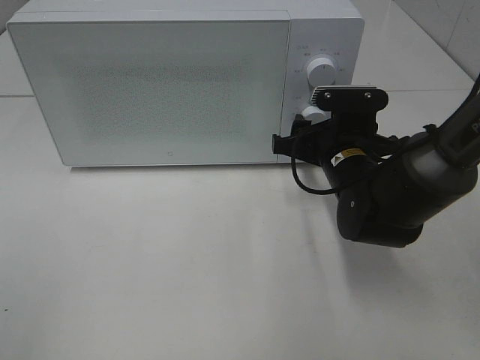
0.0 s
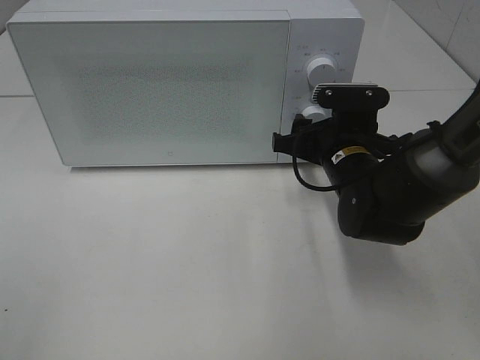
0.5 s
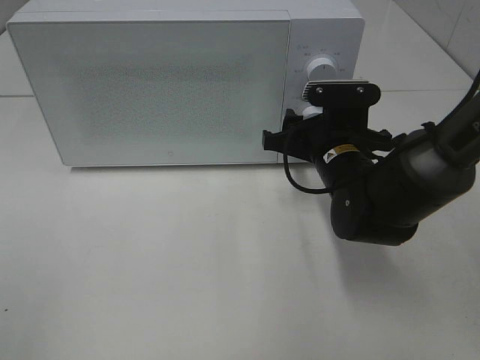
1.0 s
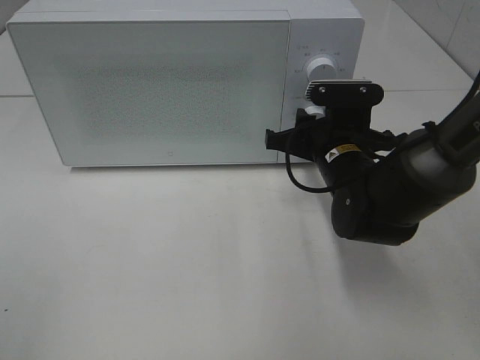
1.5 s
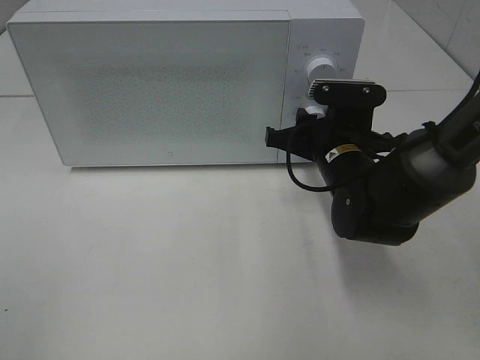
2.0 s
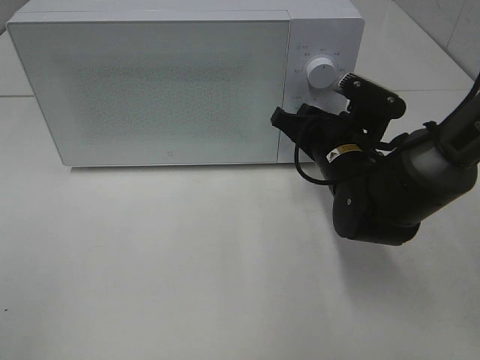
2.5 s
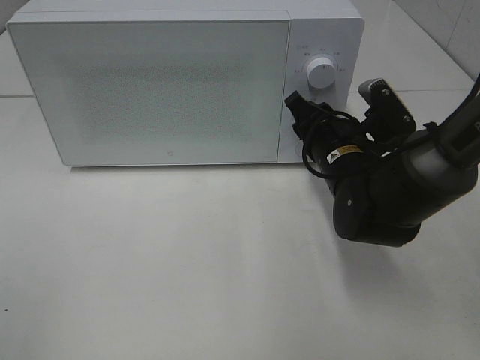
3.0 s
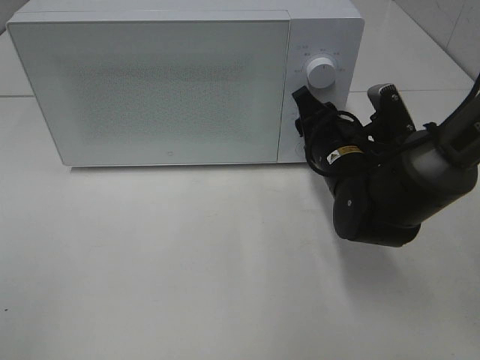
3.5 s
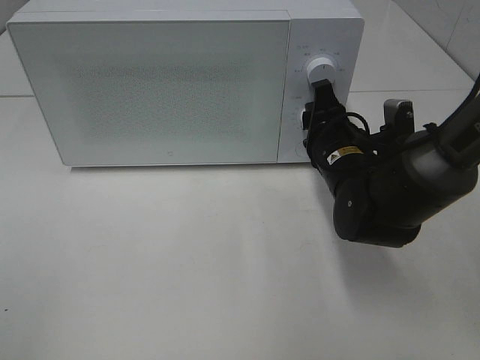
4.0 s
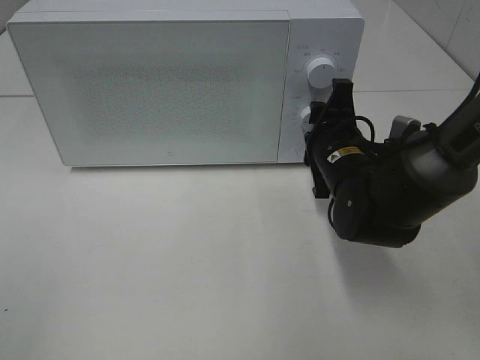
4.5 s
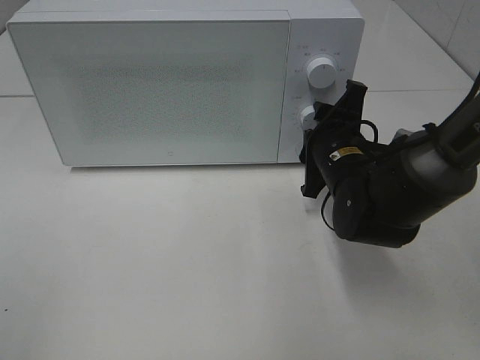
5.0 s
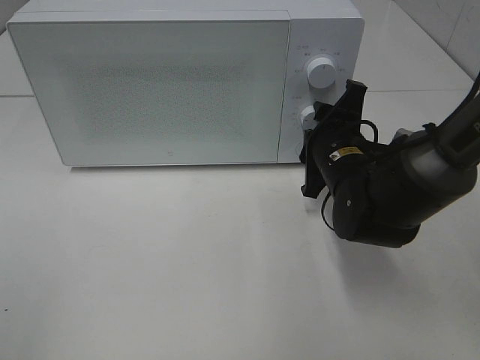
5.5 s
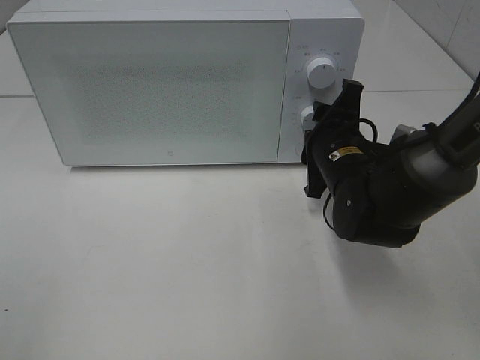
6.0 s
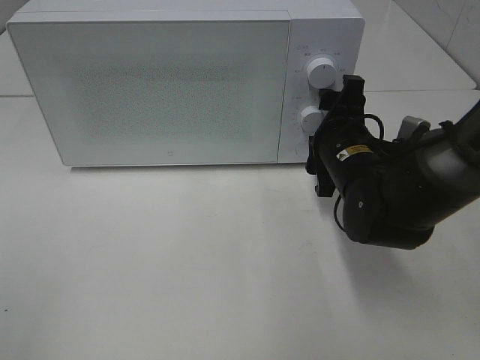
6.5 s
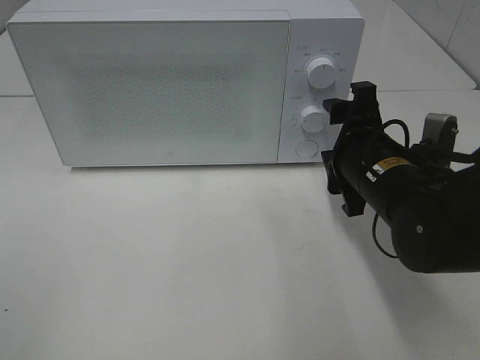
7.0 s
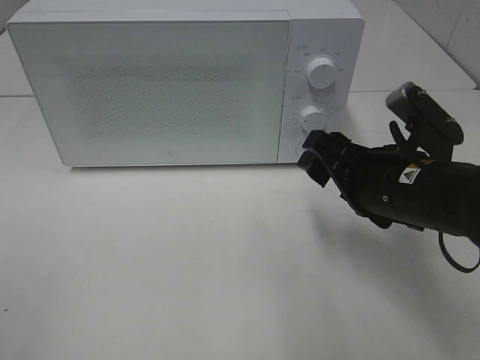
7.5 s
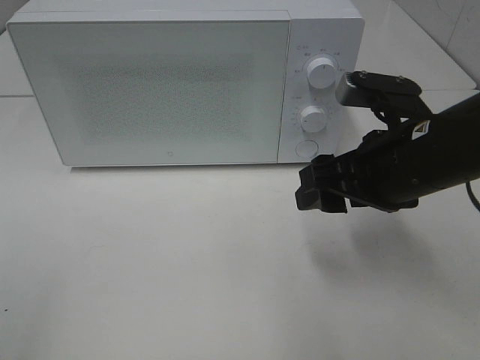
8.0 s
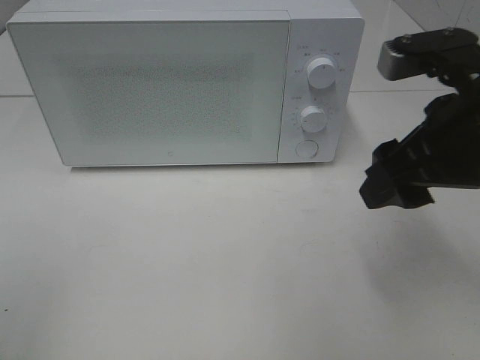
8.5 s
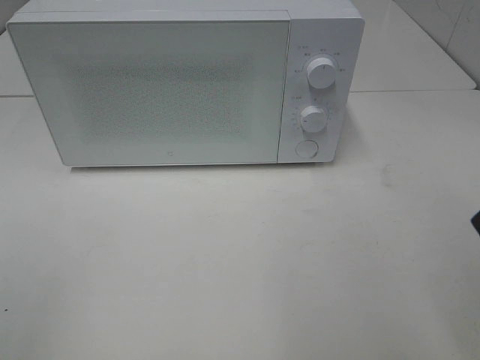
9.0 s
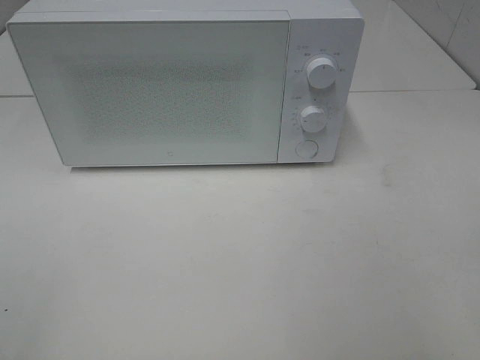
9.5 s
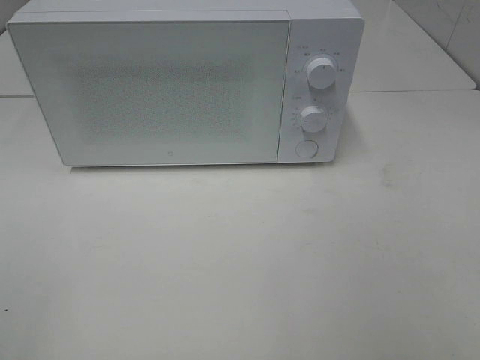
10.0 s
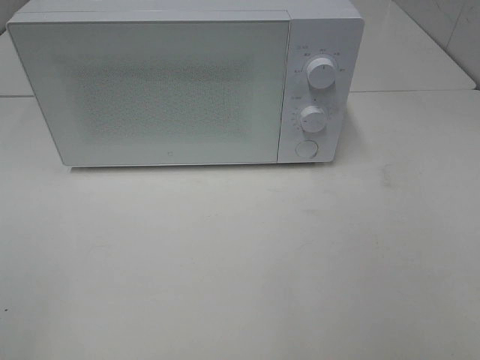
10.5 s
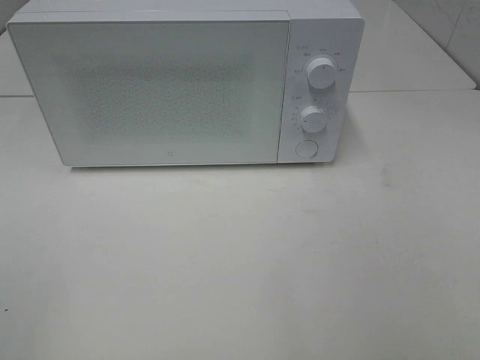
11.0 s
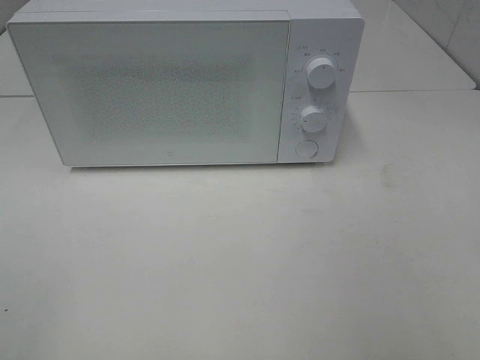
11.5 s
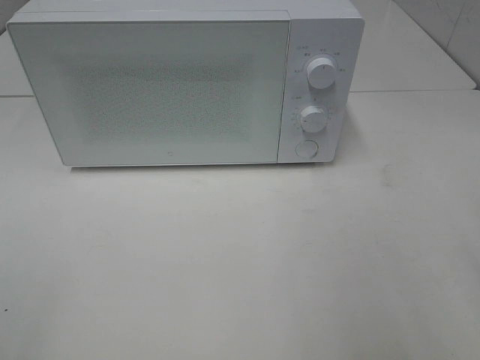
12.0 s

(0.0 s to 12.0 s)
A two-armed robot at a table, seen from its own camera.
Task of the whole recording: Heat the burger.
Step, 0.0 s - 6.5 s: Right hand: twist timer button.
0.0 s - 2.0 s: The two grippers keep their place.
6.0 s - 8.0 s: The right gripper goes roughly 15 cm upward and backward.
8.0 s - 10.0 s: The right gripper heads backward, to the right and upward, covering about 25 cm.

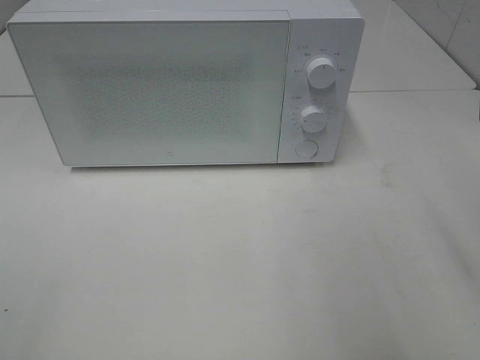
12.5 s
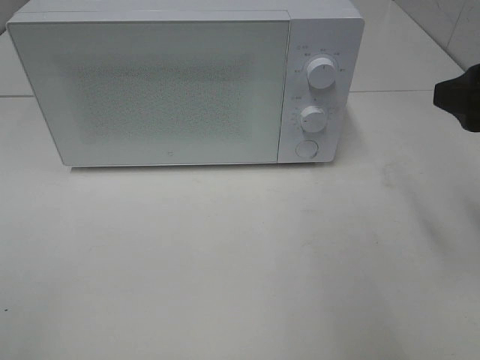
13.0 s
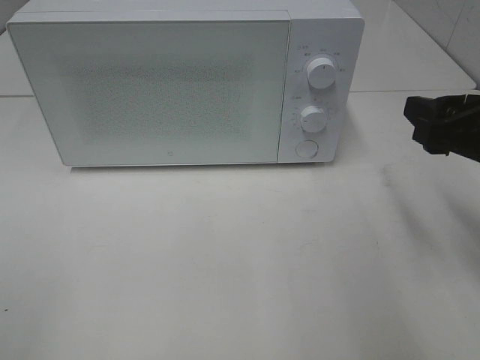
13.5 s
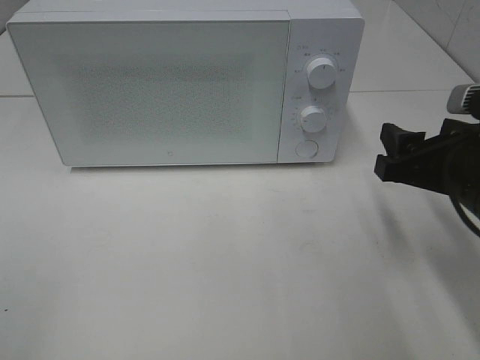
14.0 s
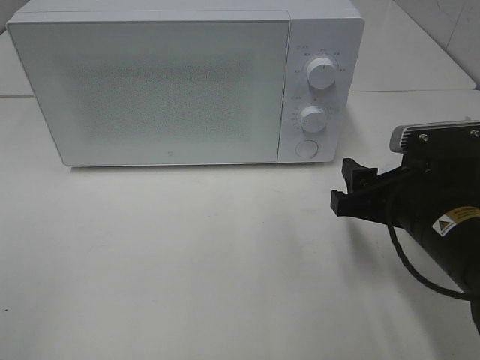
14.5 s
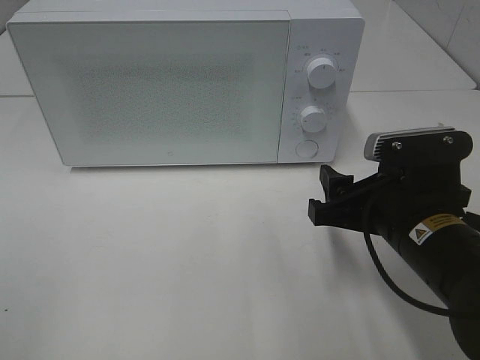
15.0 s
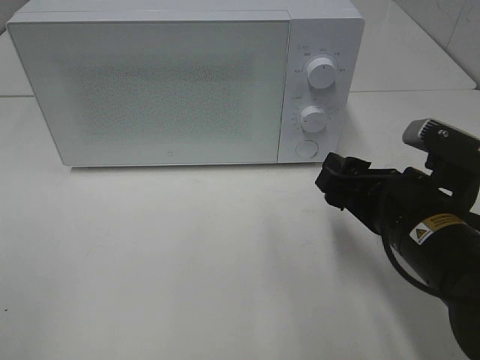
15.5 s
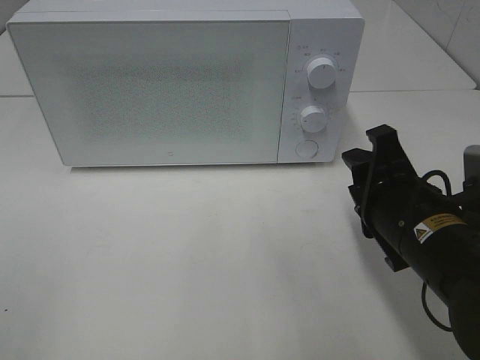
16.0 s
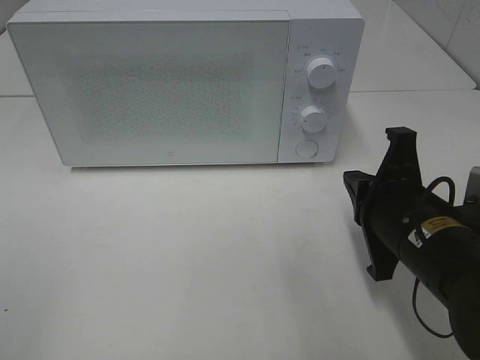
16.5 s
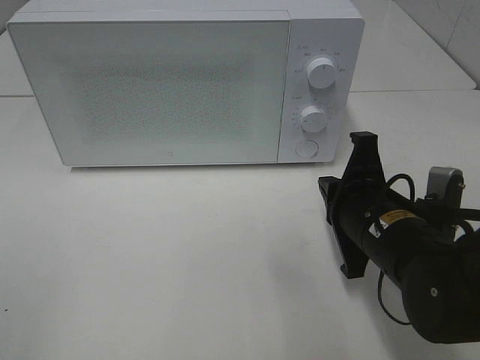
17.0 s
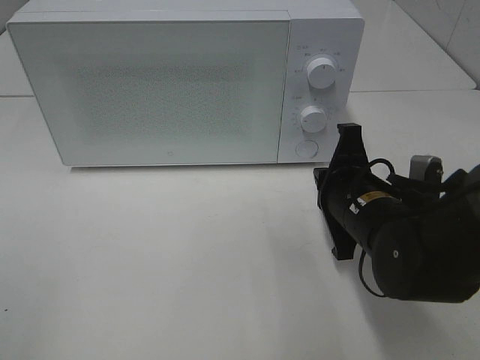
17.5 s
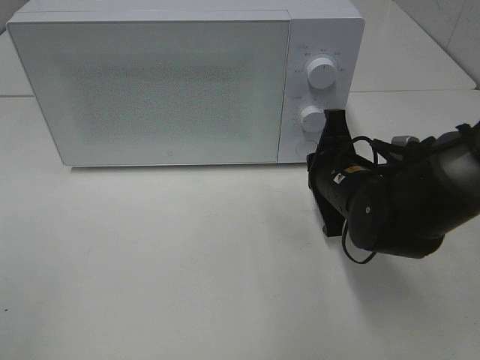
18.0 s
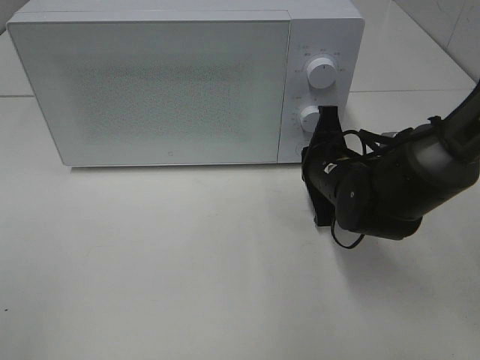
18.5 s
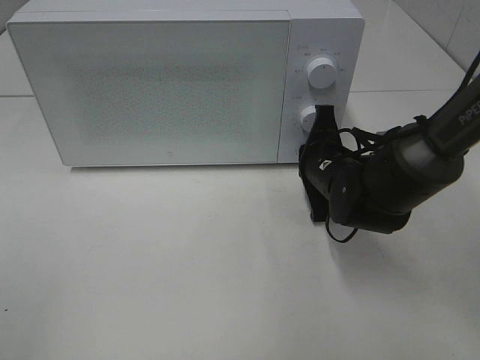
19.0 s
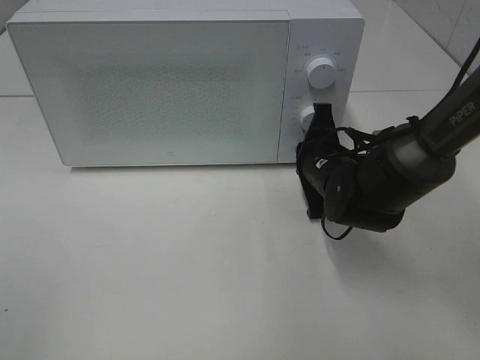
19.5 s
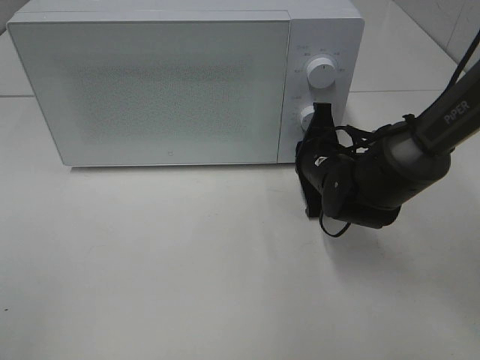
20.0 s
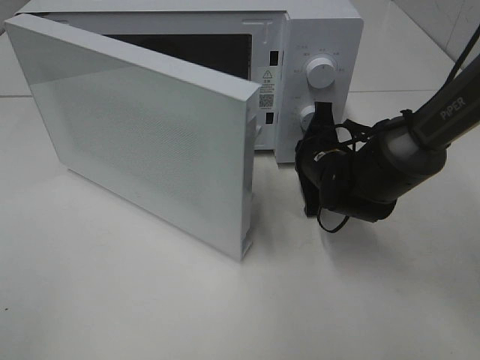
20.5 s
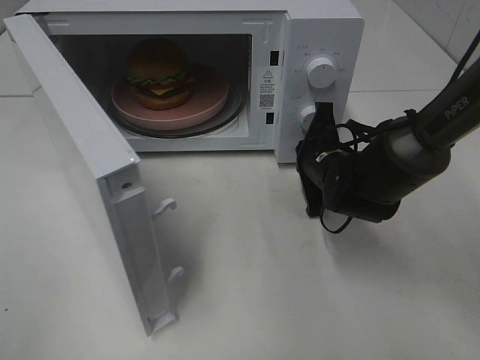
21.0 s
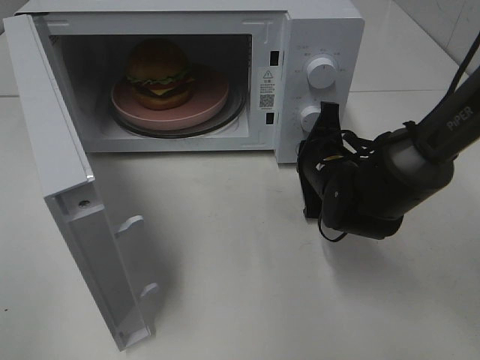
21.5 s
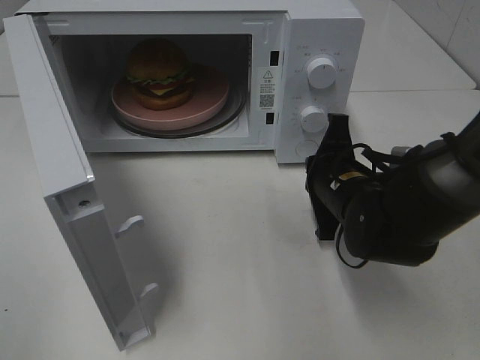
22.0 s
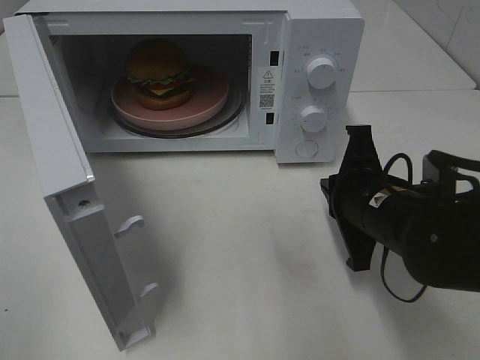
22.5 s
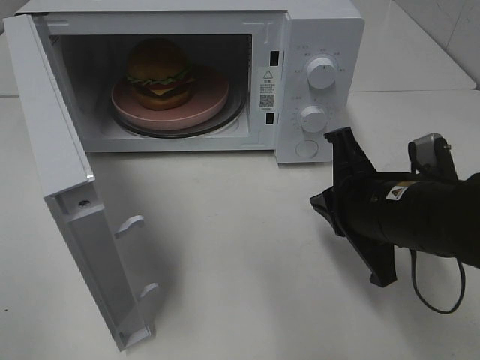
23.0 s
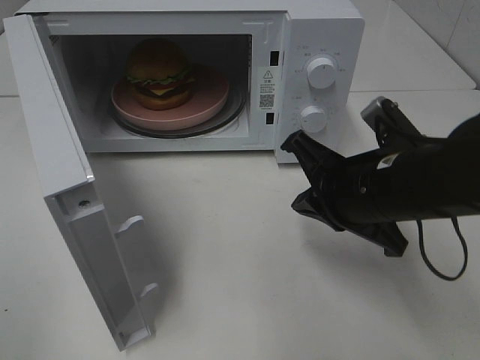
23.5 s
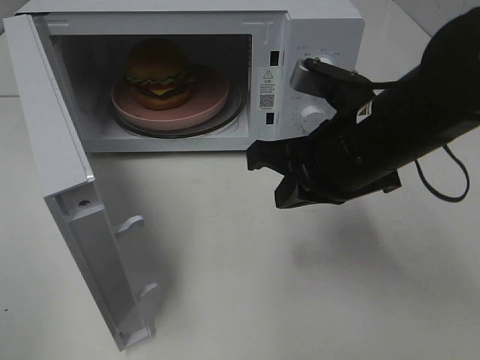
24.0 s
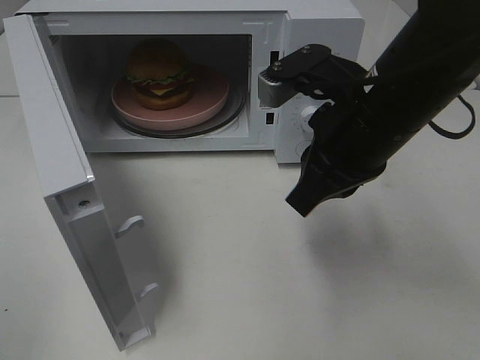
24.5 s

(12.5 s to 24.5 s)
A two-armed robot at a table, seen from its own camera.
Task of the whole recording: Heat the burger.
Step, 12.5 s - 22.0 s: Right hand: press the switch.
12.5 s - 14.5 s: The right gripper moves downward and to the left, some 15 cm.
14.5 s - 16.5 s: The right gripper closes up.
16.5 s - 18.5 s: The right gripper goes roughly 15 cm forward.
20.5 s - 22.5 s: The right gripper shifts roughly 10 cm backward.
22.5 s - 24.5 s: The right gripper heads upward, covering roughly 10 cm.

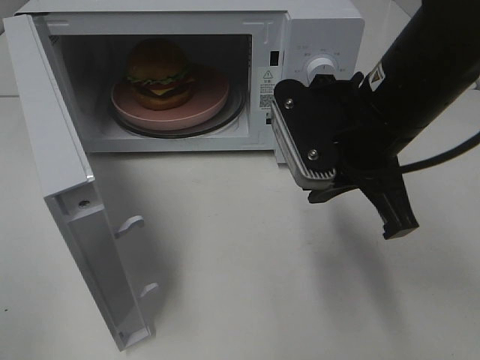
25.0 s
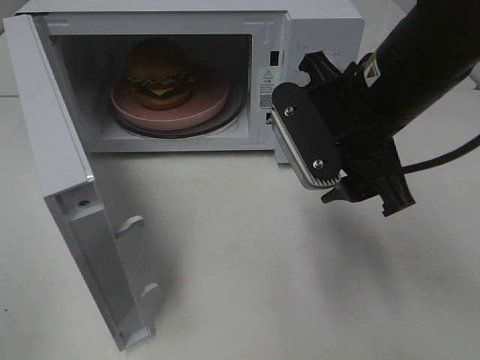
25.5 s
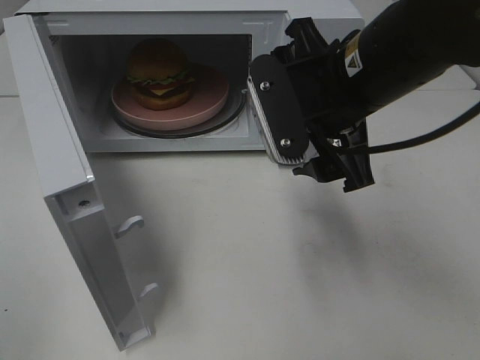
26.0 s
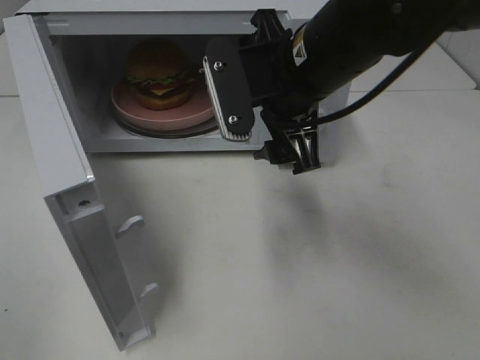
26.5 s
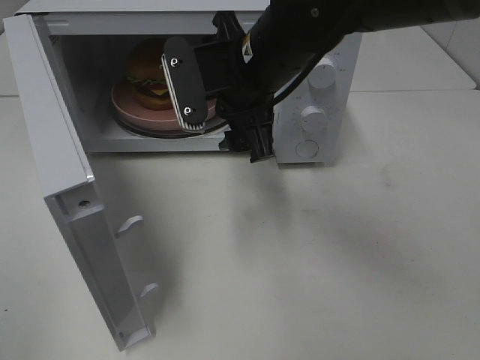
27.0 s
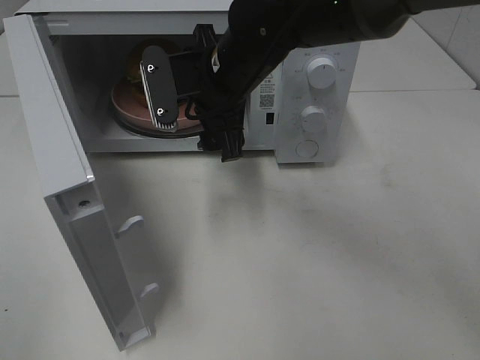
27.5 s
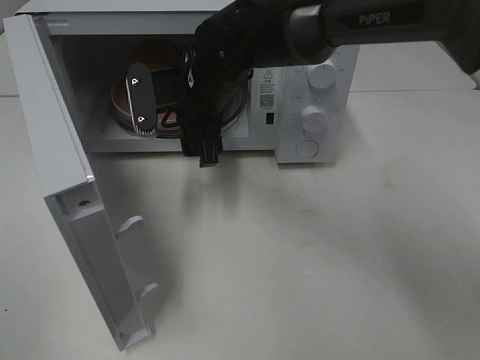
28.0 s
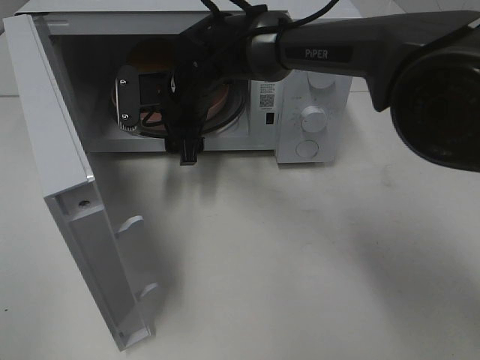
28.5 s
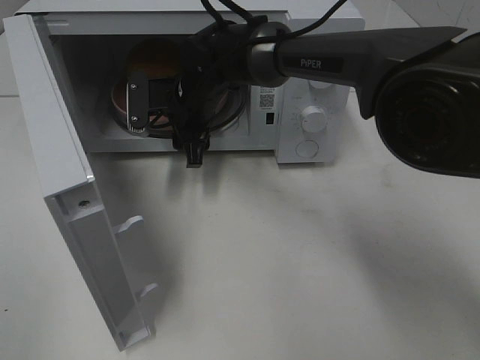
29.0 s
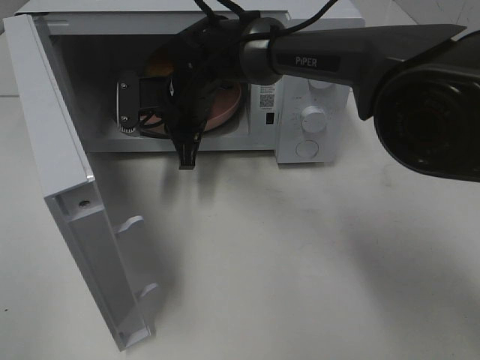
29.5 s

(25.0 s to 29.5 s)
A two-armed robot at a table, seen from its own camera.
Task of the whole recording: Heat the burger.
Step, 25.0 s - 29.0 s: Right hand: grab the plate with the hamburger.
25.0 s - 27.0 s: The right gripper goes approximately 10 cm to the left and forward, and opens.
27.0 s - 29.5 s: The right gripper shifts some 15 cm forward, downward and to the left, and closes.
